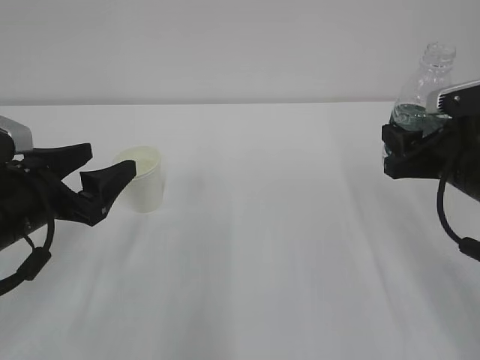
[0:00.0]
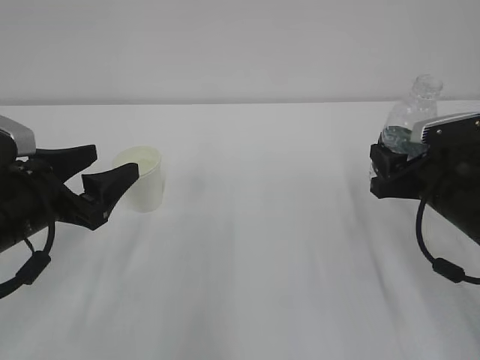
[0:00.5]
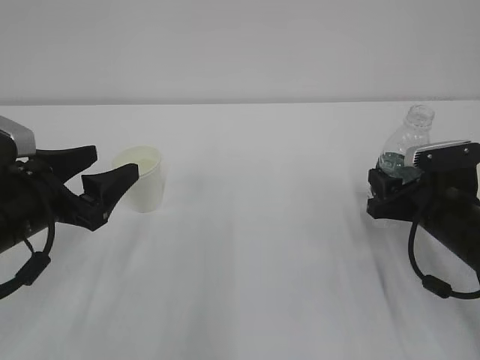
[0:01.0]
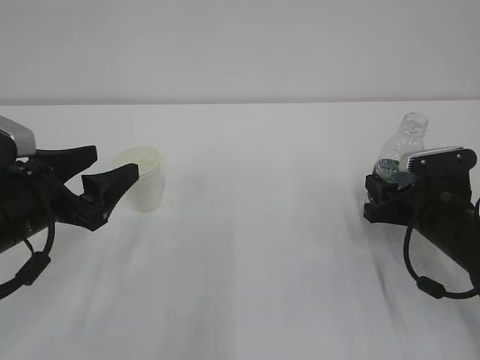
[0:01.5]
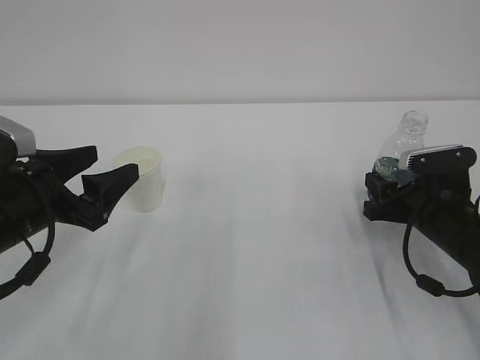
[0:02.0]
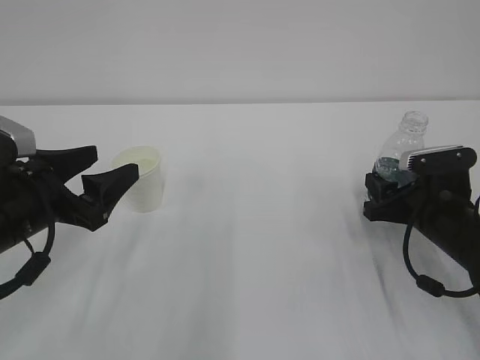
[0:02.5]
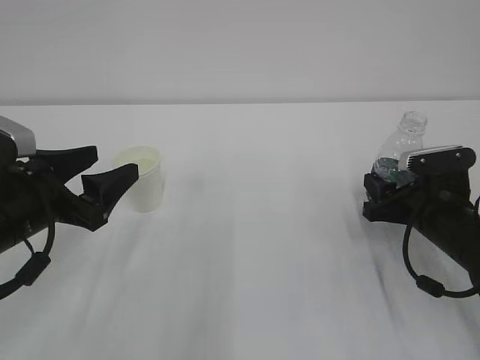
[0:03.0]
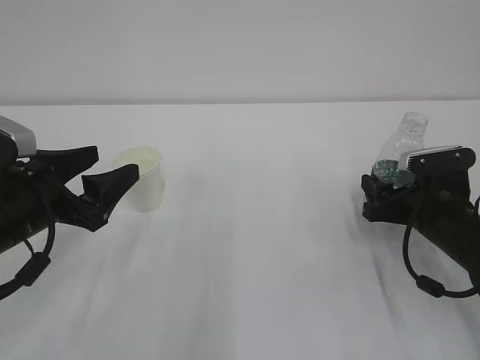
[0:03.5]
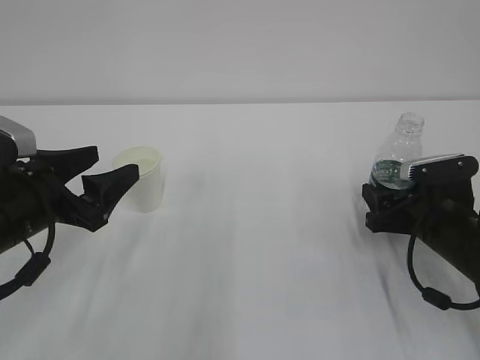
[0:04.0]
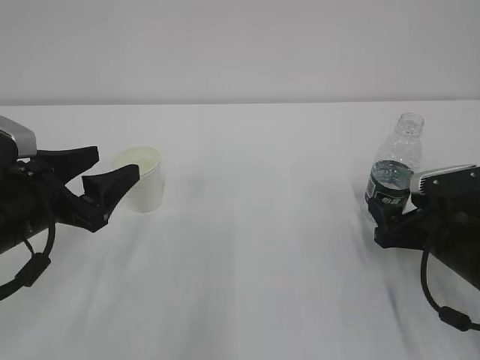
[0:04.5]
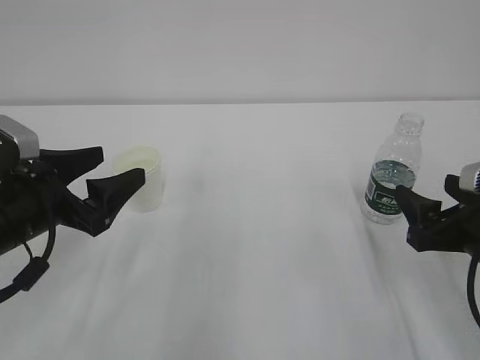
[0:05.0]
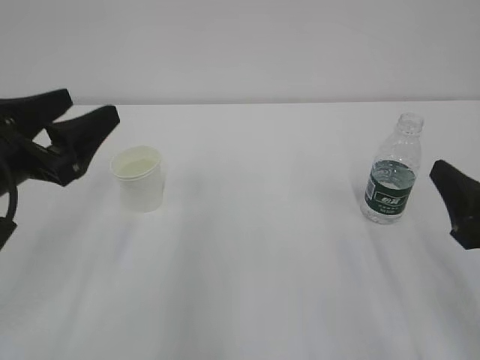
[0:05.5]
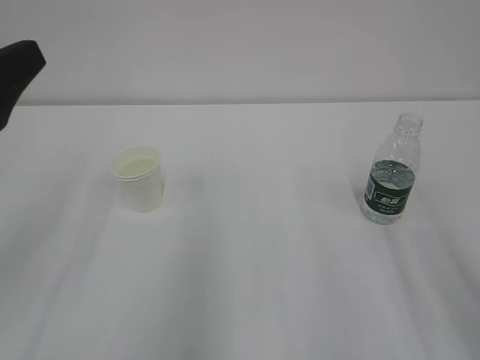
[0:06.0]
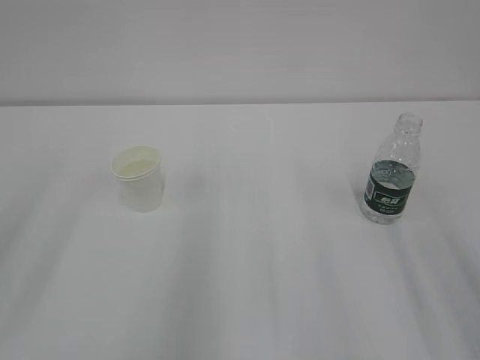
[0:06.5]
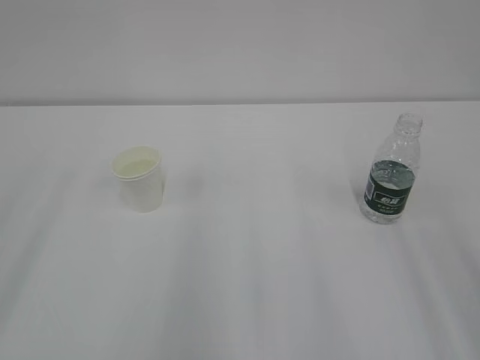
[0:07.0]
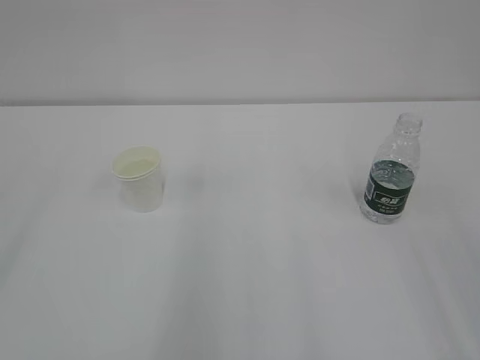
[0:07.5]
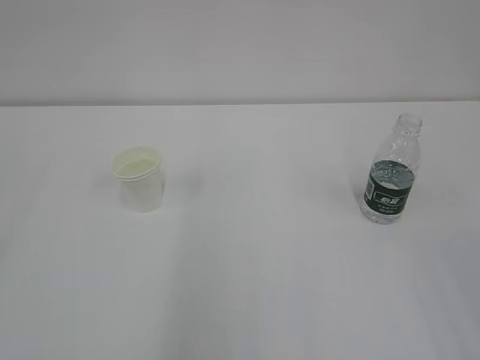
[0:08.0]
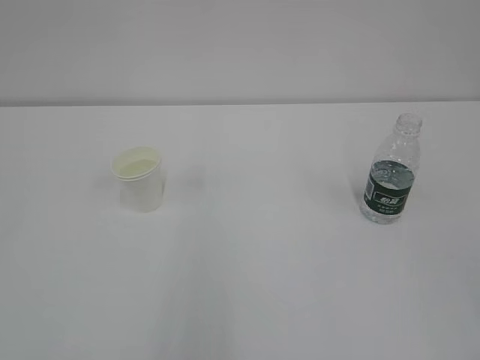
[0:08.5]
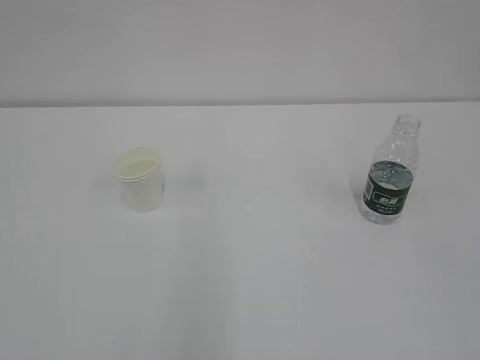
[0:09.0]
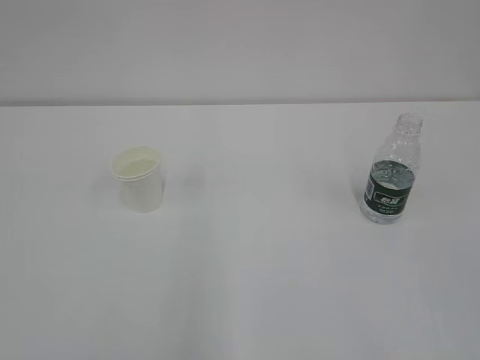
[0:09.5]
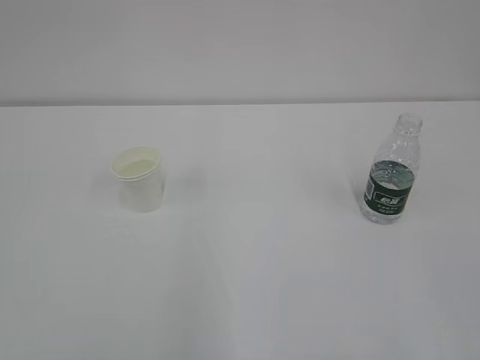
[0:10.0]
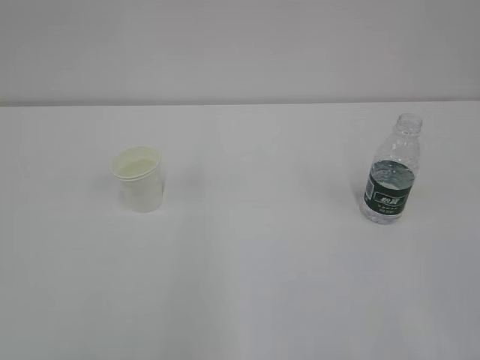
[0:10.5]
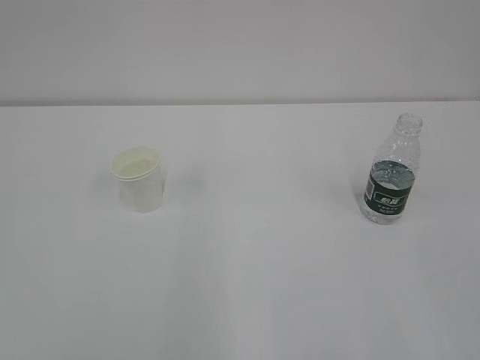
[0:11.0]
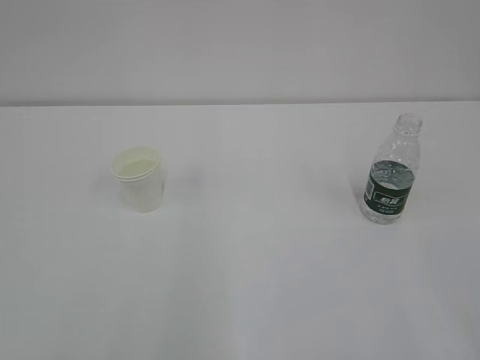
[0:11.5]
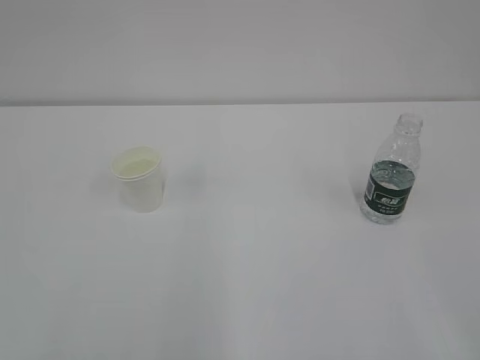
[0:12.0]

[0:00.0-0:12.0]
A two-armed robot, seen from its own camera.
0:00.0 to 0:02.0: The right gripper heads downward, covering some 10 cm.
0:02.0 to 0:04.0: The right gripper opens up.
0:04.0 to 0:06.0: The right gripper moves backward and upward, some 25 cm, while the left gripper goes some 15 cm upward and backward.
0:06.0 to 0:08.0: The left gripper shifts some 20 cm backward, upward and to the left.
